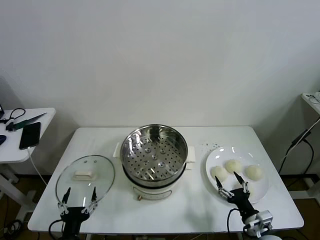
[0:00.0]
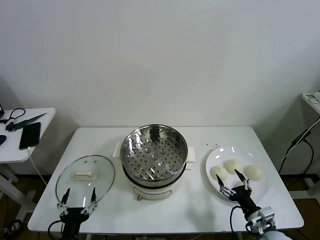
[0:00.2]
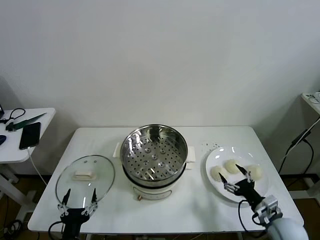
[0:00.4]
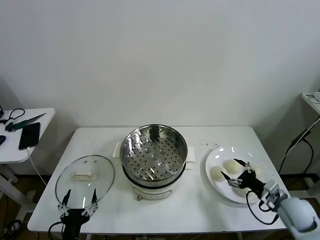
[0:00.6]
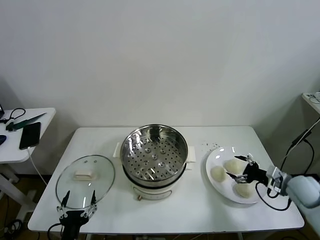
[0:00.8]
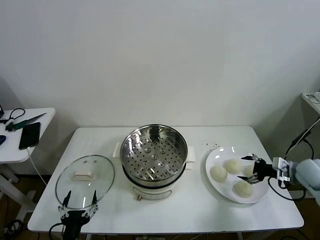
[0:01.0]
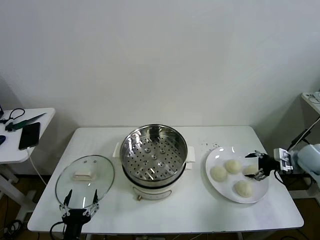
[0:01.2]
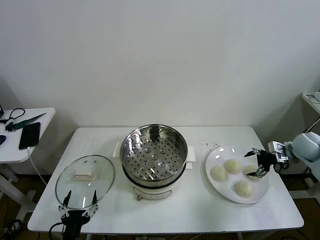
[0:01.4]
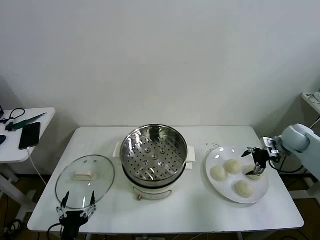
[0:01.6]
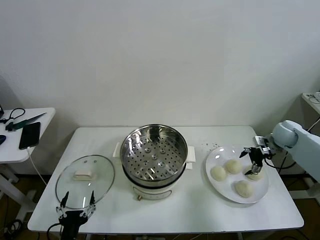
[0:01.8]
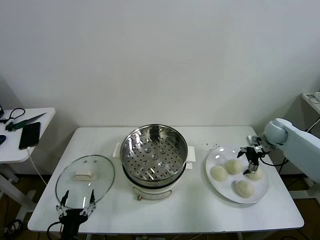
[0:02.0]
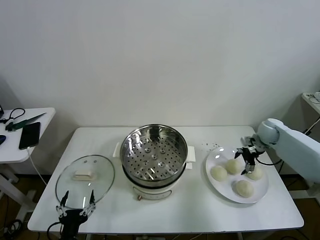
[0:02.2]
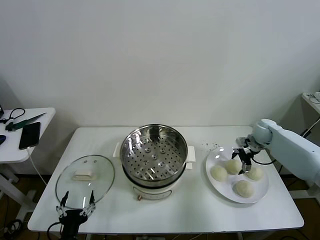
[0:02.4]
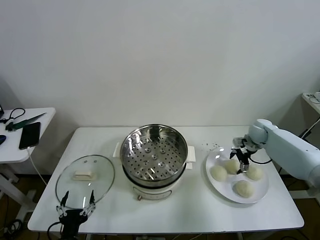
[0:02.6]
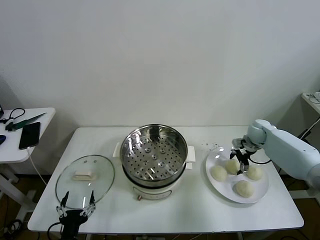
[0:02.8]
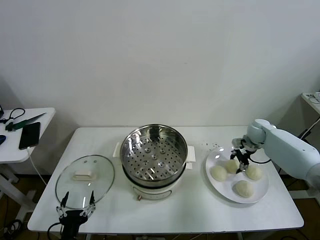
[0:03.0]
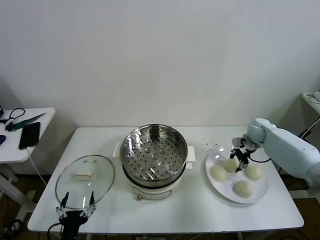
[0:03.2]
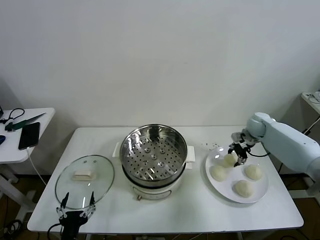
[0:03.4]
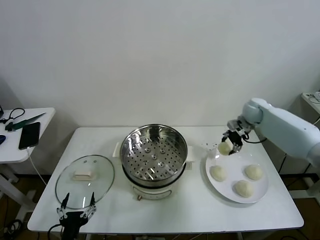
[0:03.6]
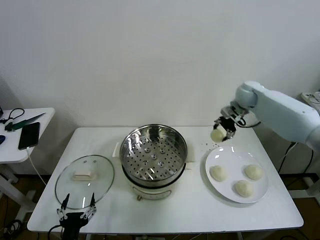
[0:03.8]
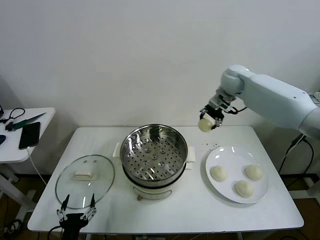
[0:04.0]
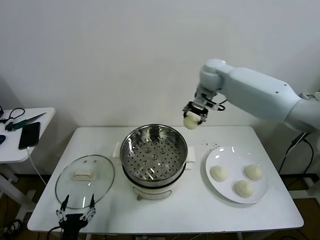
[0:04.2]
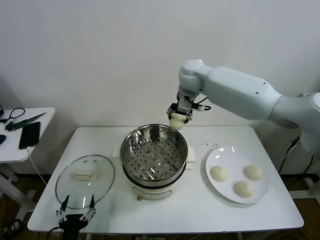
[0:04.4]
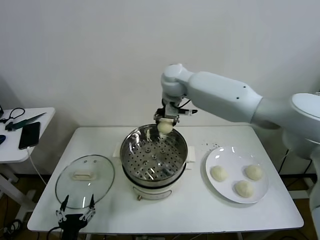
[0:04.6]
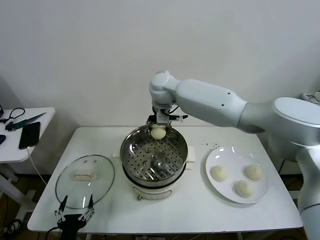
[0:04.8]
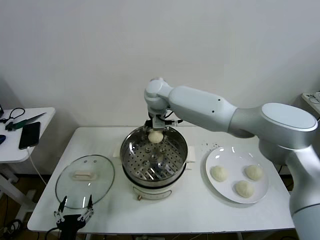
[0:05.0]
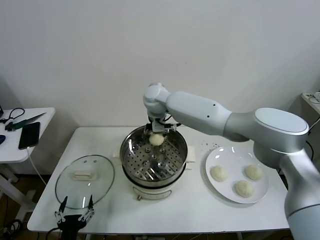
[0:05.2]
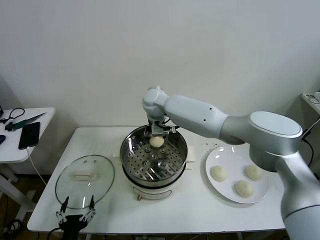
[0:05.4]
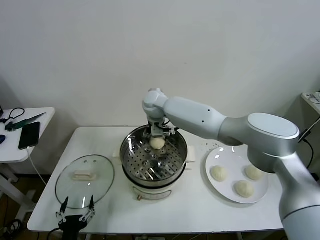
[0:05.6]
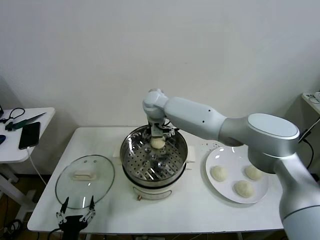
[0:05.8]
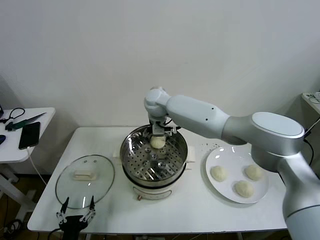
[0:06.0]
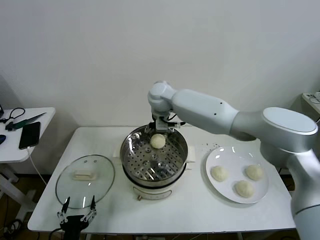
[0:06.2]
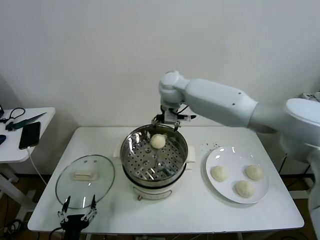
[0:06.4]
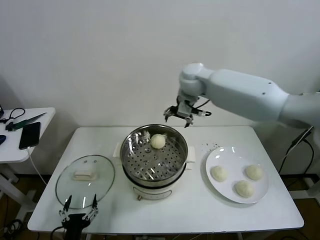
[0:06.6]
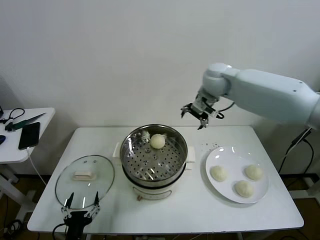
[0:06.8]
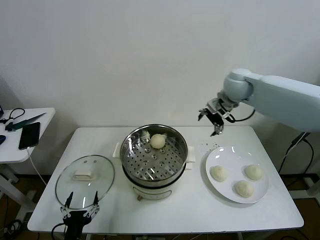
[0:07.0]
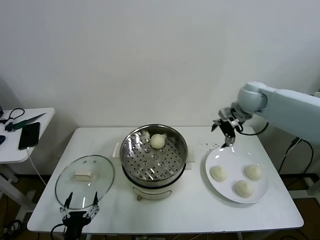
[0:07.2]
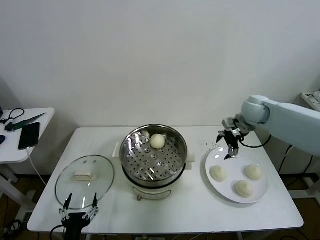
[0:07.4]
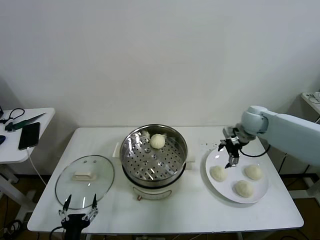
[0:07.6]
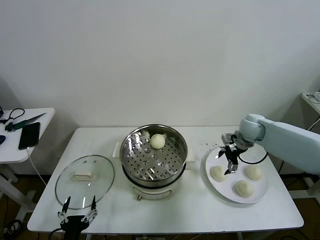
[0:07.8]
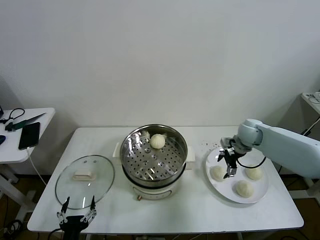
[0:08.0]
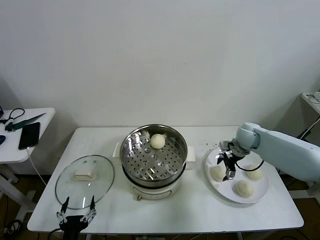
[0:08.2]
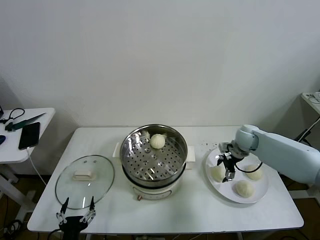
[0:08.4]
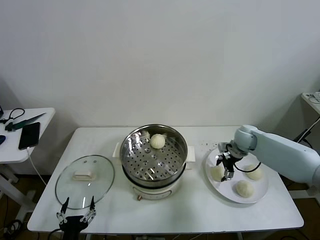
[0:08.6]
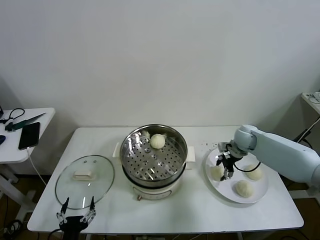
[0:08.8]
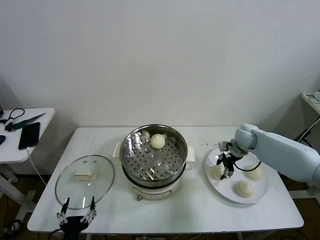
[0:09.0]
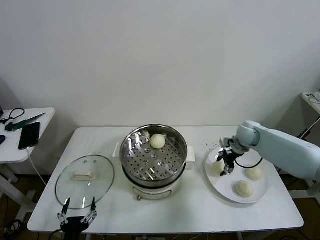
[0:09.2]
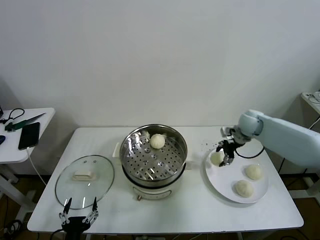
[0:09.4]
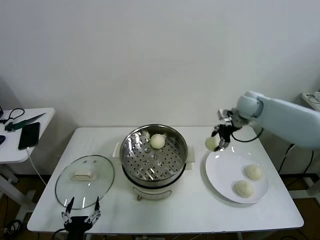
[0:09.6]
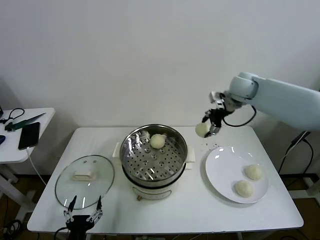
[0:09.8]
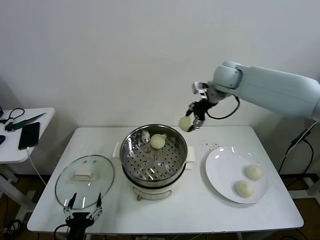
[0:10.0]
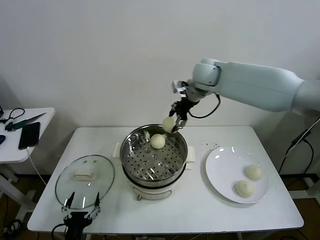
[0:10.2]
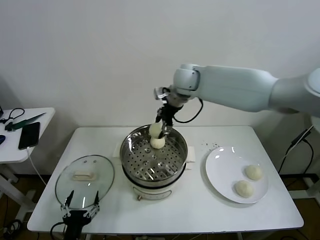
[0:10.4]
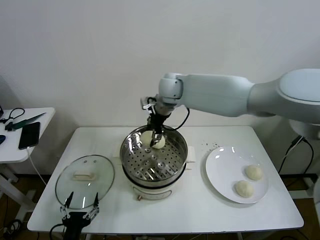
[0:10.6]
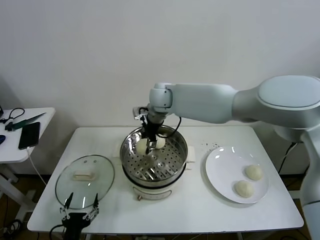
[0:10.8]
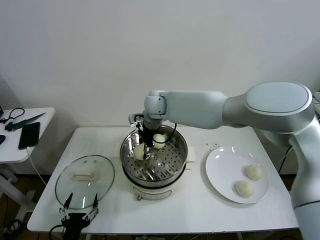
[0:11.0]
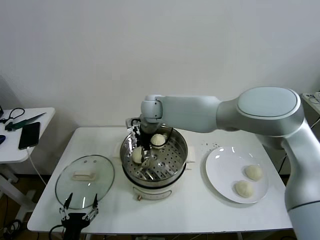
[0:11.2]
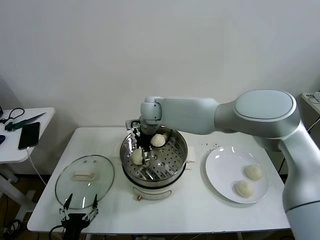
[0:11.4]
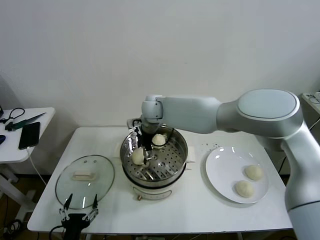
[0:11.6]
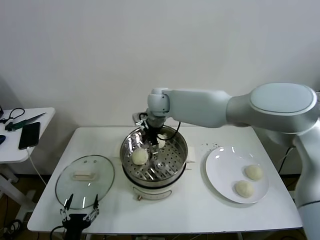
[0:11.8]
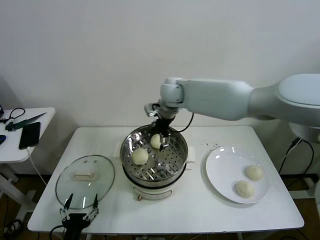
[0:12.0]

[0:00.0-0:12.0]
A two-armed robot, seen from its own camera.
Task of the whole recording: take steamed baozi put them in steamer then cover it.
Step, 0.0 to 3.0 s: Grasp the baozi in the plate with right gripper.
Step, 3.2 to 5.8 s: Place the baozi on the steamer with right gripper.
Step, 6.0 to 9.0 s: Grasp the baozi in the plate with right gripper.
Step, 9.2 to 11.4 s: Place the baozi on the steamer with right gripper.
1.6 to 3.0 s: The right gripper moves to the left and forward, approximately 10 cm, and closes.
3.0 to 4.4 s: The right gripper goes approximately 40 cm to the left and upward.
4.4 to 6.0 s: The right gripper is displaced downward and to the left by some 10 cm, and opens.
6.0 to 7.6 s: The right gripper travels to the right by approximately 35 cm.
7.6 to 9.0 s: The right gripper heads downward, covering some 10 cm, and closes.
9.0 to 10.4 s: The right gripper moves to the left and upward, some 35 cm.
10.4 to 12.0 s: The right gripper travels downward and back again, about 10 cm each way, and opens.

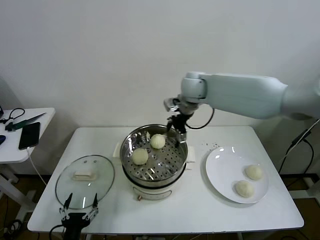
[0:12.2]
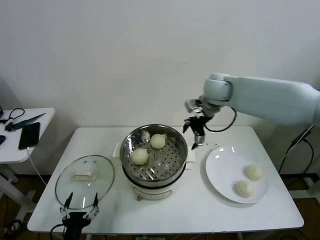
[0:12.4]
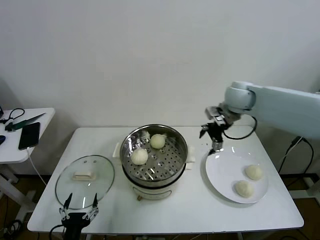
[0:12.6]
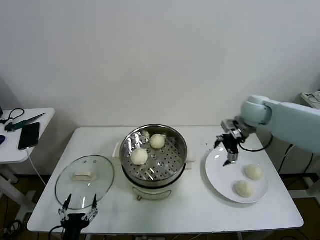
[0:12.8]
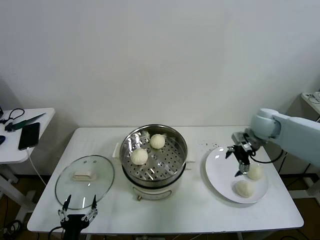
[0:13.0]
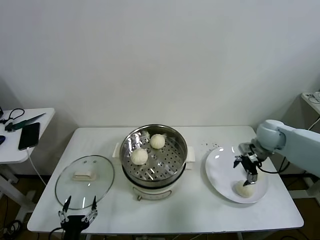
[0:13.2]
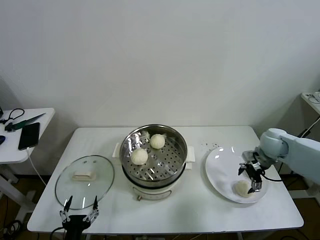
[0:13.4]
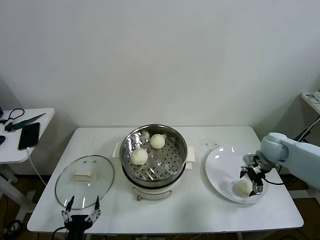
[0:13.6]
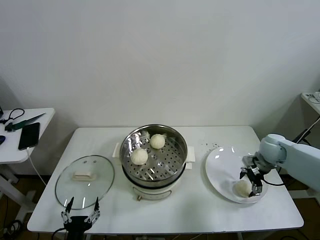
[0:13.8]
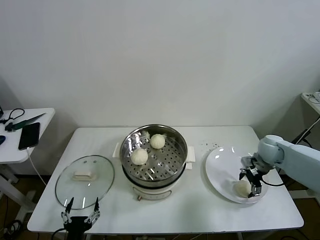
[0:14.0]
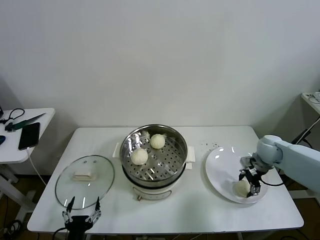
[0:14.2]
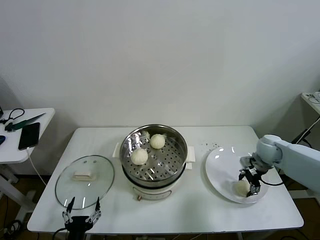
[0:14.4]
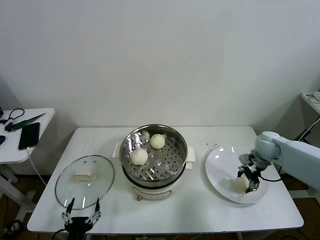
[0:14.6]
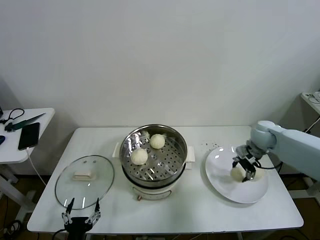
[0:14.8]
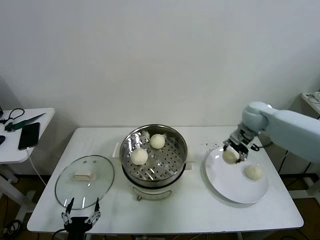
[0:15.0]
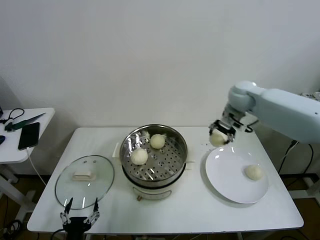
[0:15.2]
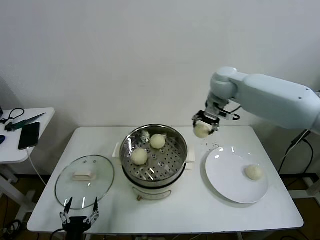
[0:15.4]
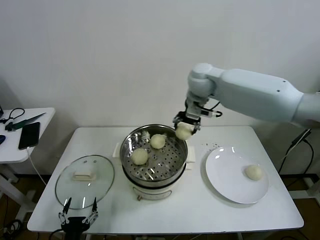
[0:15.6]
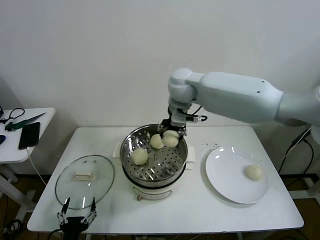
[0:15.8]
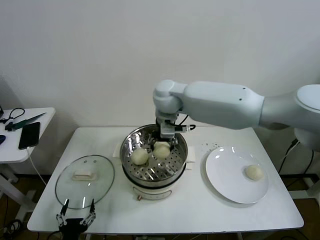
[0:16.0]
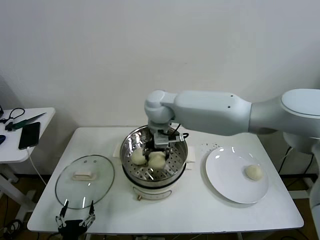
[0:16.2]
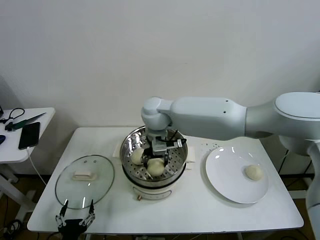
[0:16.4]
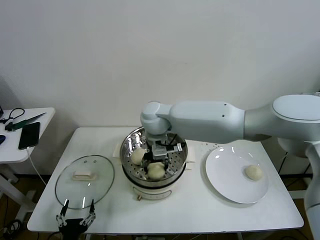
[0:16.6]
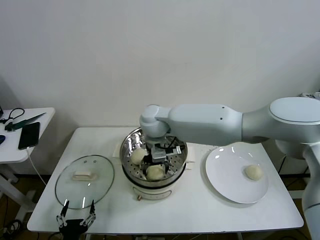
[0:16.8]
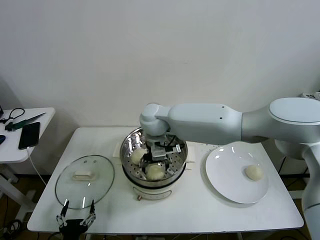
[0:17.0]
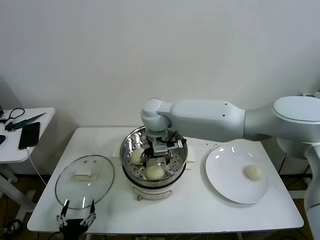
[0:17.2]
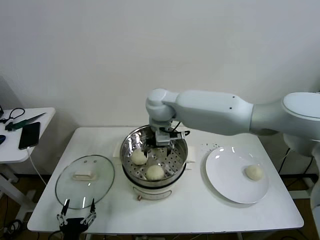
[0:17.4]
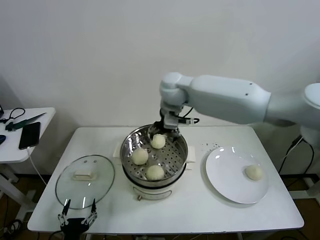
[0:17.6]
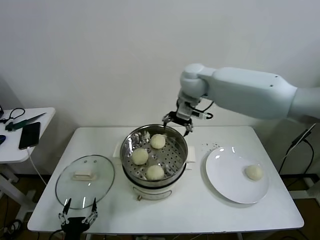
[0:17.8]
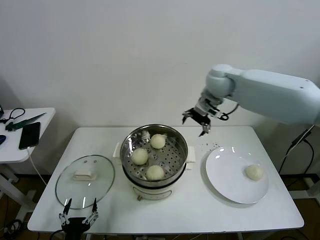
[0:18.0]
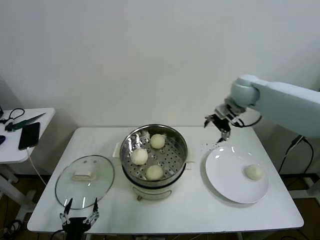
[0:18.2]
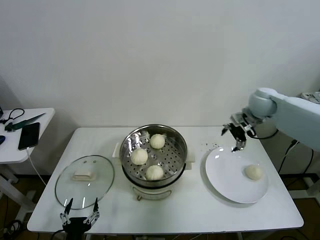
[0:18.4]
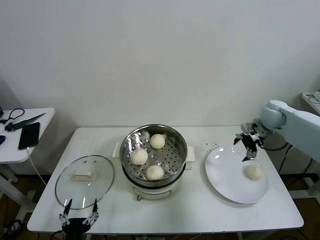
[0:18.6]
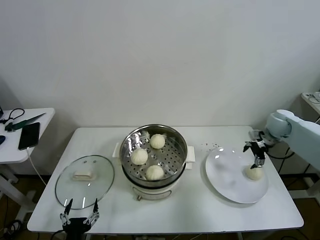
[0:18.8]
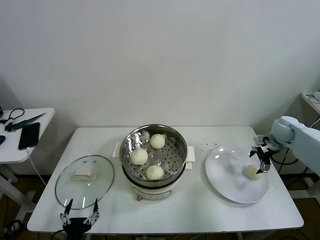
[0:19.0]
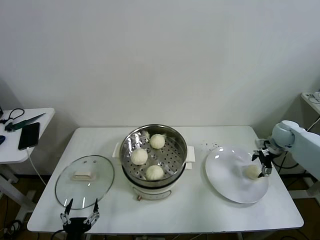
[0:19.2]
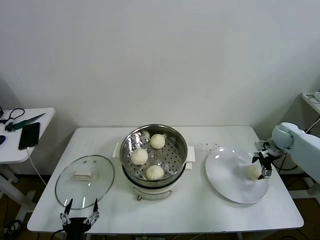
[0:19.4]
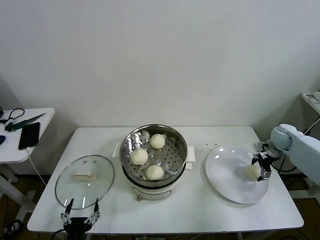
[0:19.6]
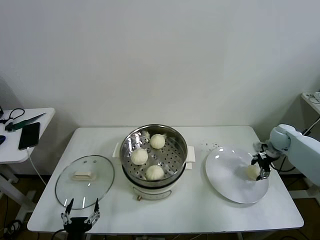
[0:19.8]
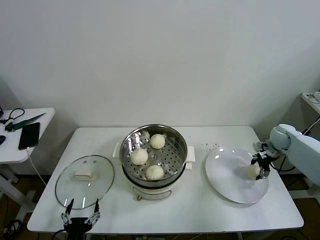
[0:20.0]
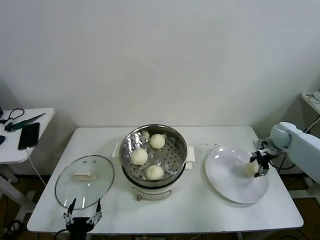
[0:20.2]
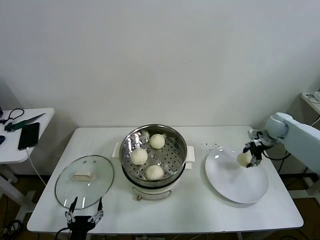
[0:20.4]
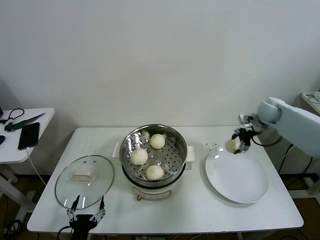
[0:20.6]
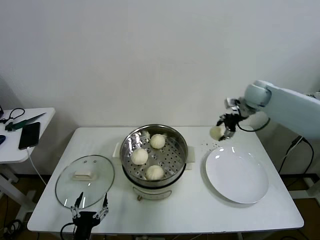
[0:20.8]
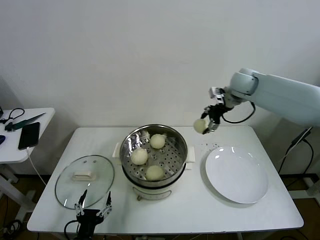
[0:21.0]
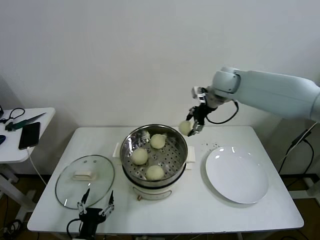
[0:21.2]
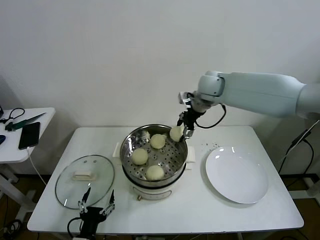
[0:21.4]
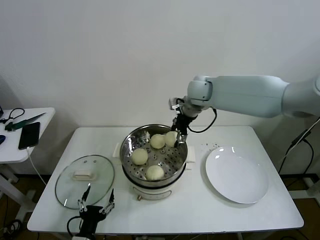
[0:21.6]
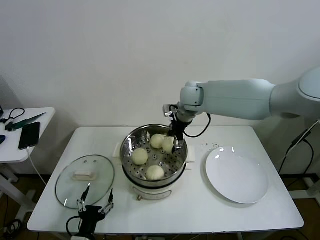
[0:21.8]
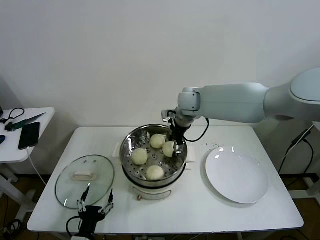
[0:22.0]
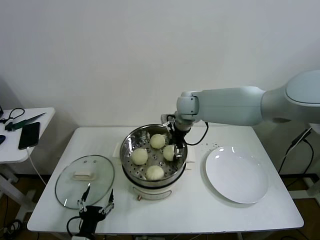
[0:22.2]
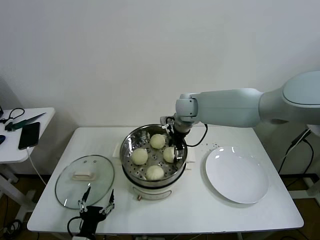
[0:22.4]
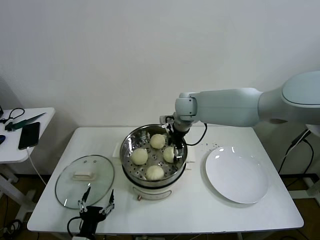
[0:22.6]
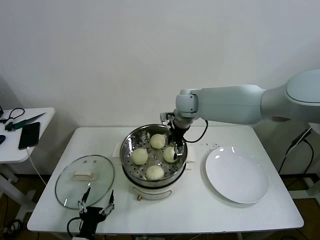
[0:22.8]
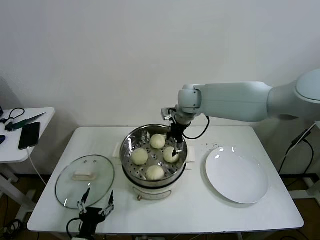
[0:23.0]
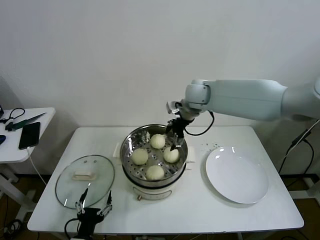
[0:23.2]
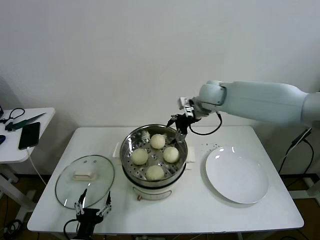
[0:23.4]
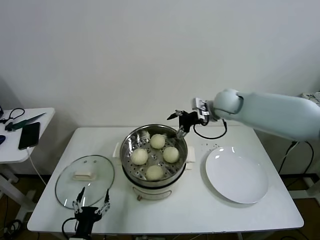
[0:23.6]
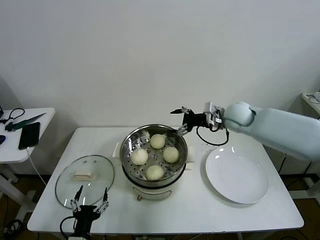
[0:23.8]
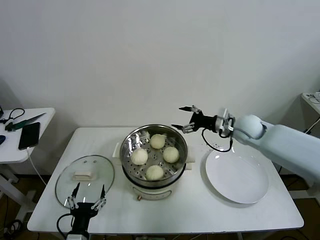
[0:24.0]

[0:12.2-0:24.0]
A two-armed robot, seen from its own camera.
Task of the whole recording: take steamed baozi put them in steamer then cover it.
Step, 12.2 to 14.2 s: Grasp the baozi in the plate with right gripper.
Step, 14.4 to 17.0 s: Place the baozi on the steamer with right gripper.
Step, 17.2 to 19.8 s: Grasp the baozi in the plate with right gripper.
Step, 20.2 to 22.6 s: Place the baozi on the steamer with right gripper.
12.2 to 13.6 s: The right gripper travels to the right and downward by about 35 cm.
13.6 to 15.2 s: The right gripper heads upward, to the left and forward, covering roughly 25 cm, and closes.
15.2 to 16.6 s: The right gripper heads to the left, covering some 30 cm.
16.6 to 18.2 s: The right gripper is displaced to the right by approximately 30 cm, and opens up.
18.2 to 19.6 s: The right gripper is displaced to the right and downward by some 30 cm.
19.6 to 21.0 s: The right gripper heads upward and to the left, covering some 30 cm, and closes up.
21.0 to 22.6 s: The right gripper goes about 20 cm to the left, and opens up.
22.6 to 24.0 s: The right gripper heads to the right, covering roughly 20 cm.
